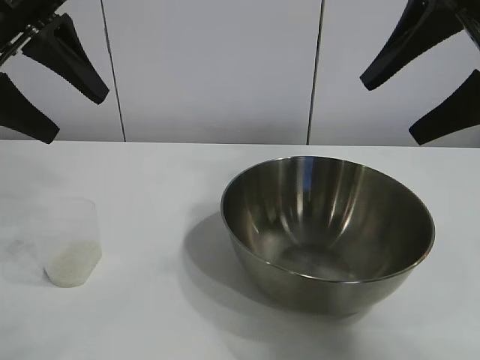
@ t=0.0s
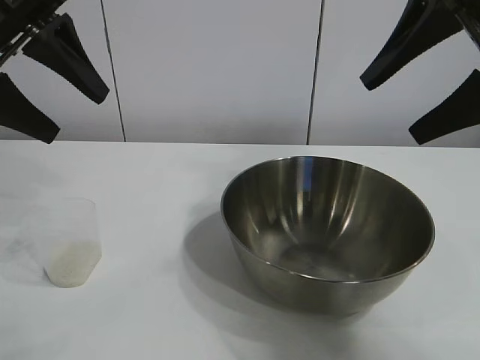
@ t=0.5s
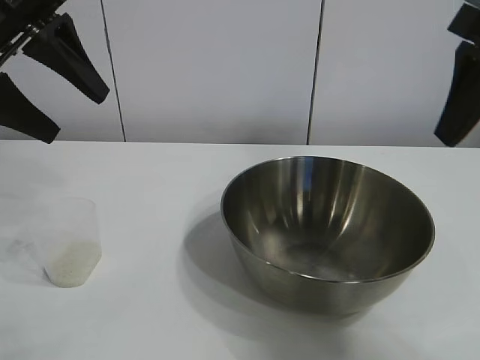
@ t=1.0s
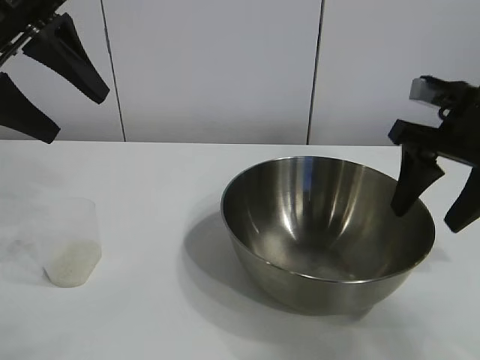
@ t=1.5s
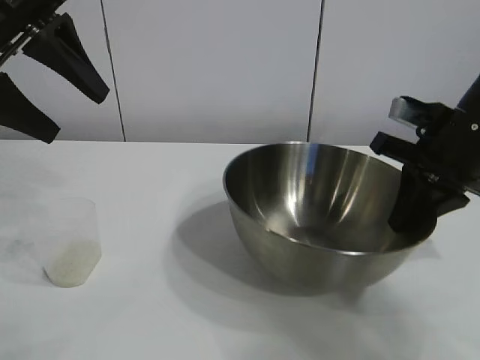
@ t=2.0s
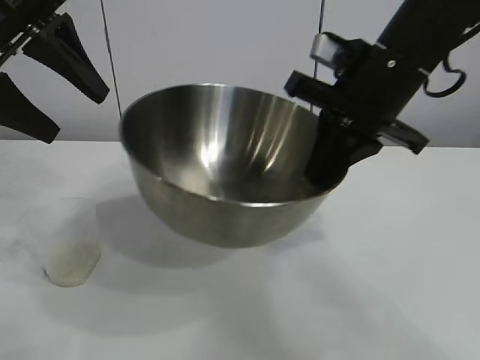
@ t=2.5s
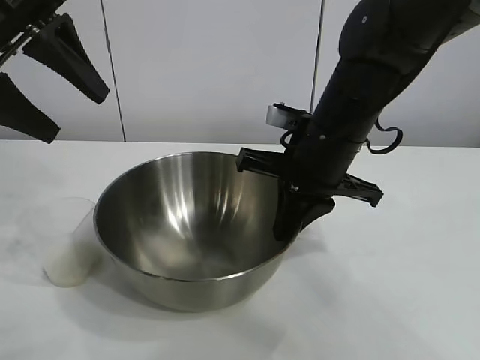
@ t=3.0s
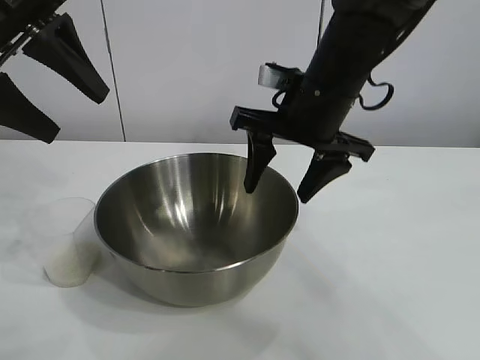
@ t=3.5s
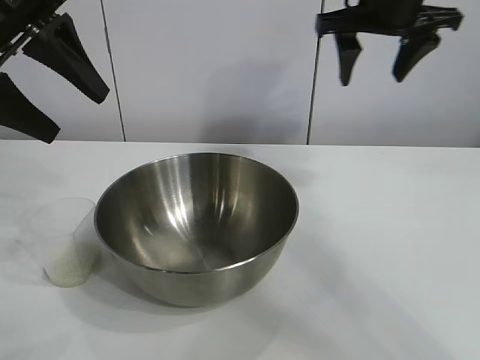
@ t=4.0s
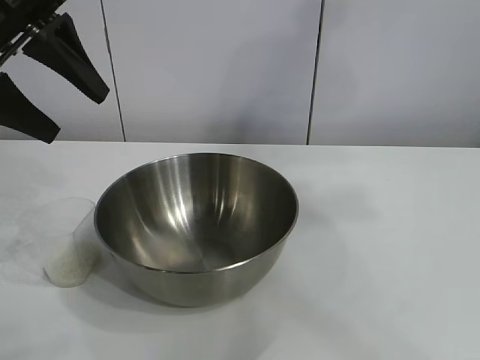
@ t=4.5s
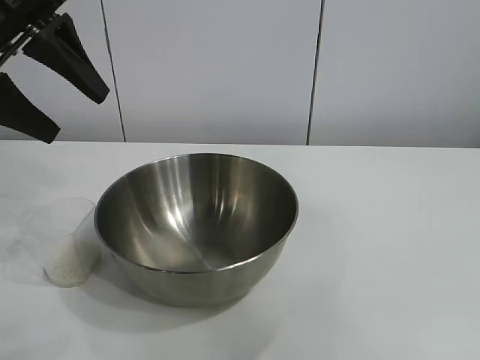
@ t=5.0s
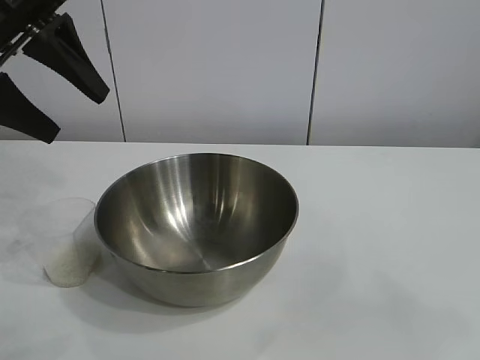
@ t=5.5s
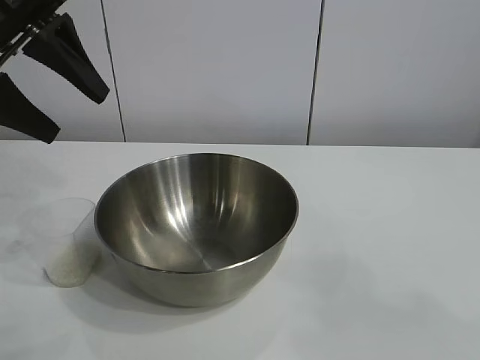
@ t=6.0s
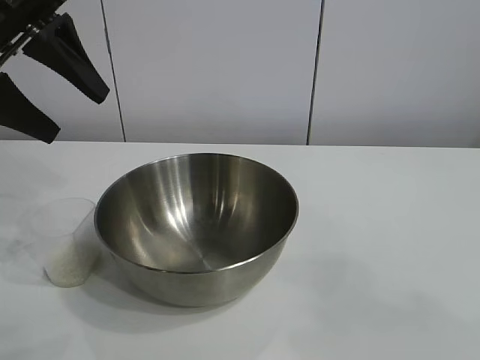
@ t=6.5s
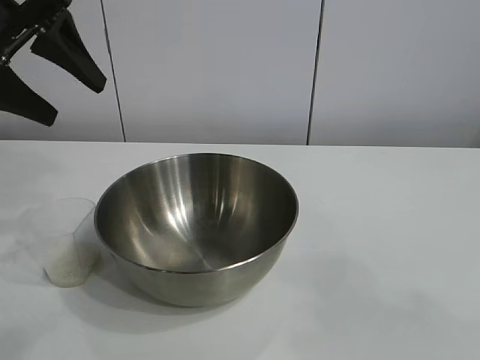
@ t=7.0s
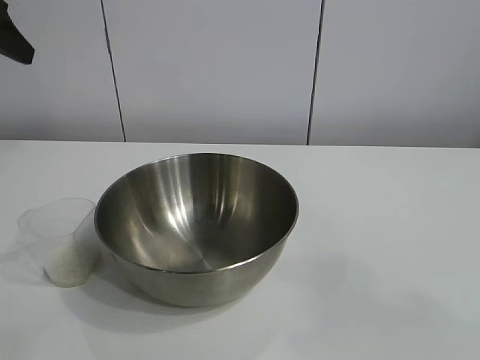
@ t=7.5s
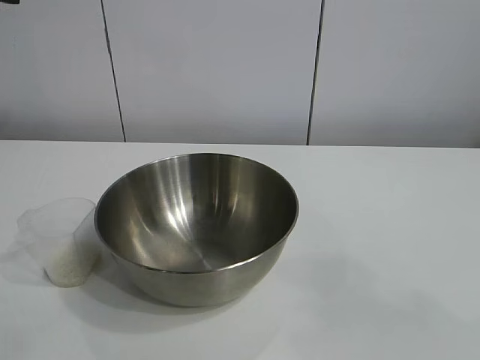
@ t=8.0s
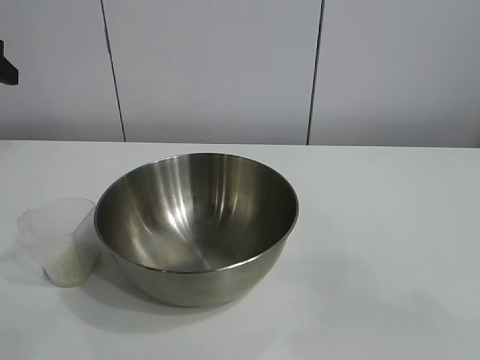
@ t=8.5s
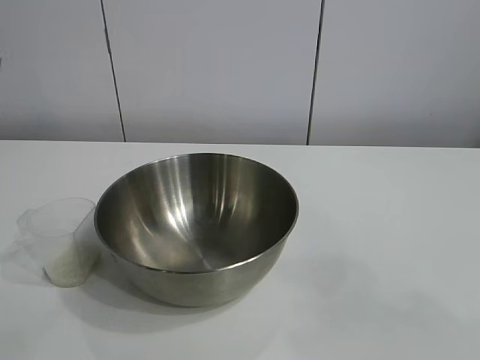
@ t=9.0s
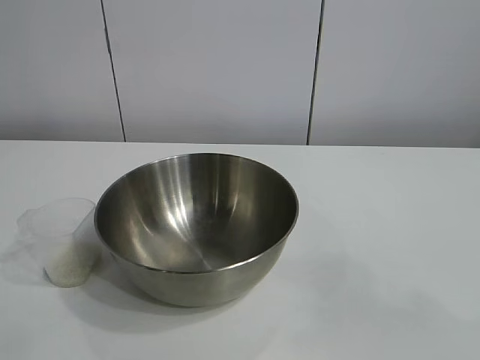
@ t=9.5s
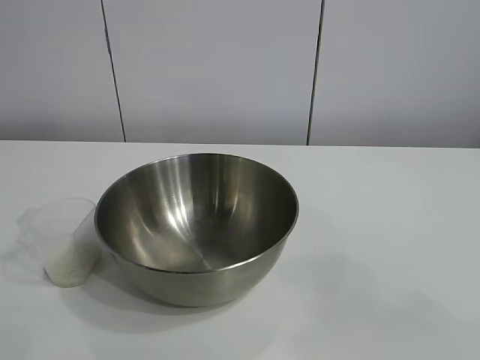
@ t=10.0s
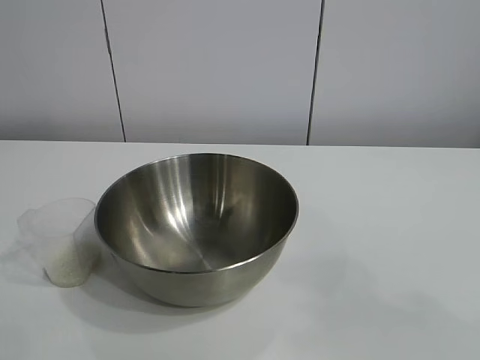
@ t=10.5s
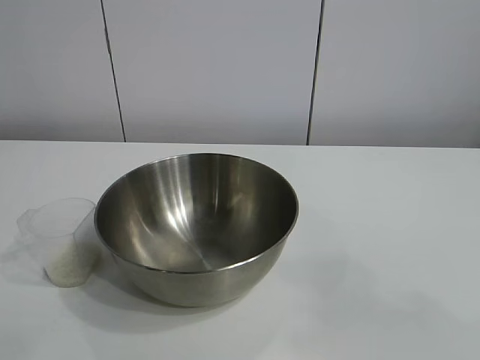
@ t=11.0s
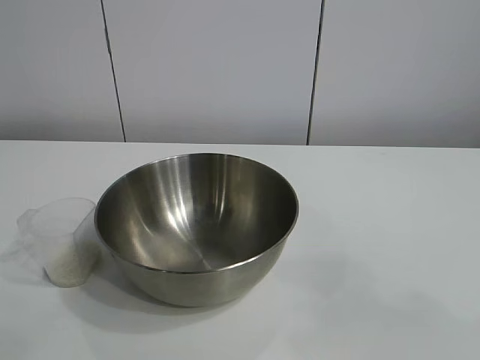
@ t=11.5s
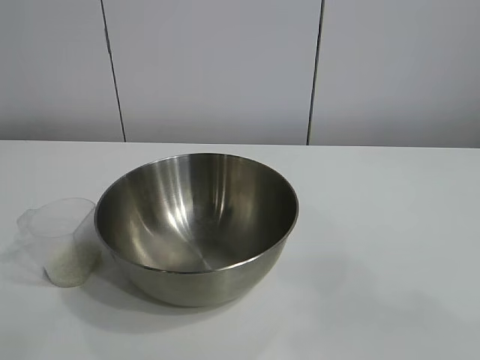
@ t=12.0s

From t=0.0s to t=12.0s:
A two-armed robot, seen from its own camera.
Task of the whole recording: the right gripper grasp the rice container and place it in the center of the table, the left gripper grasp the rice scoop and pour the rice into the rice container.
Step, from t=1.0s to t=3.0s: Move the bowl in the center of view with right gripper.

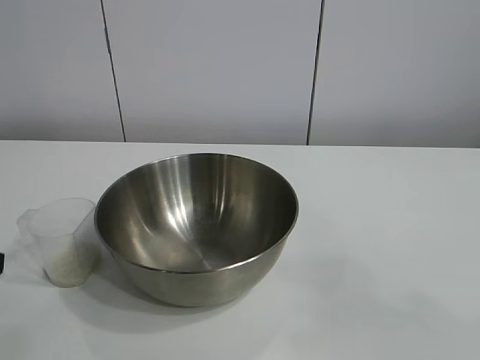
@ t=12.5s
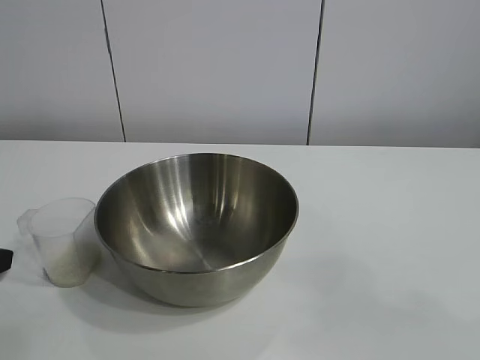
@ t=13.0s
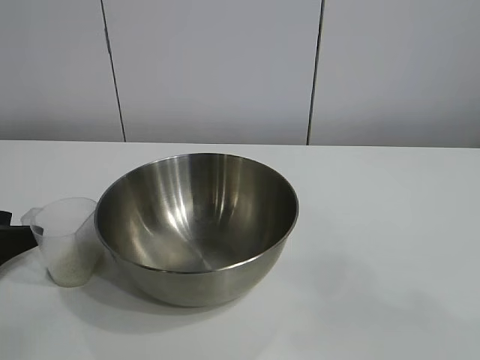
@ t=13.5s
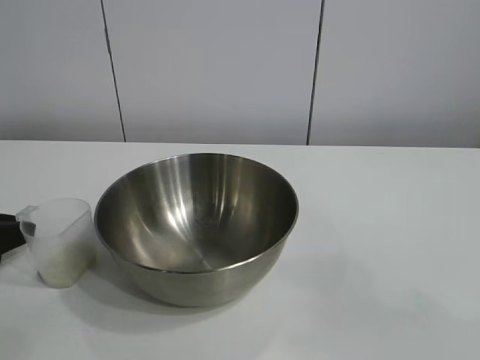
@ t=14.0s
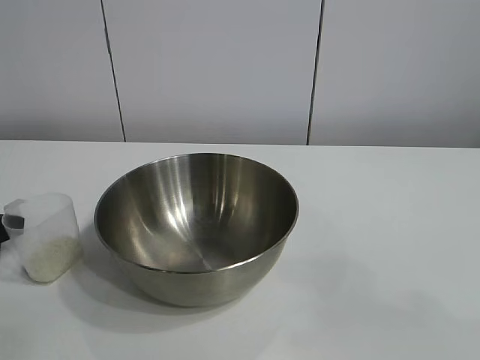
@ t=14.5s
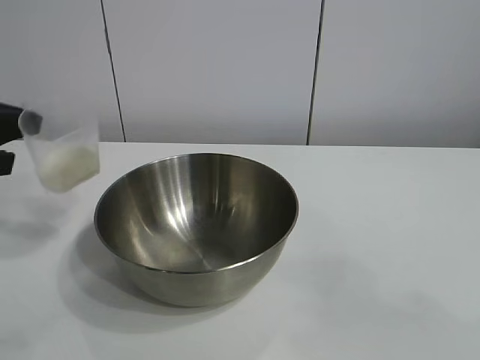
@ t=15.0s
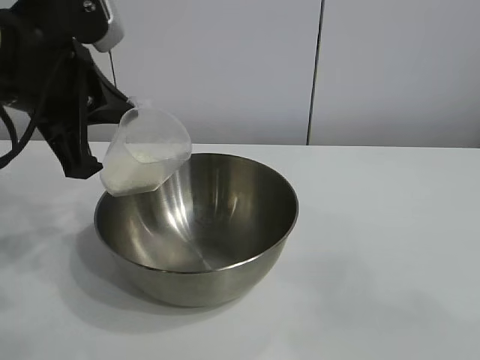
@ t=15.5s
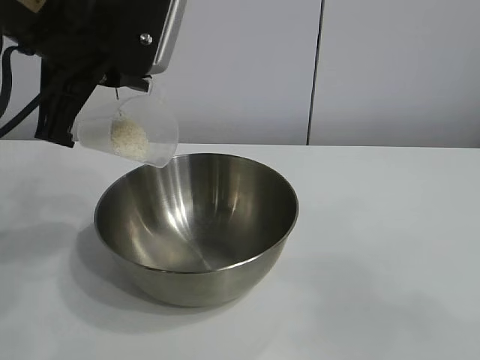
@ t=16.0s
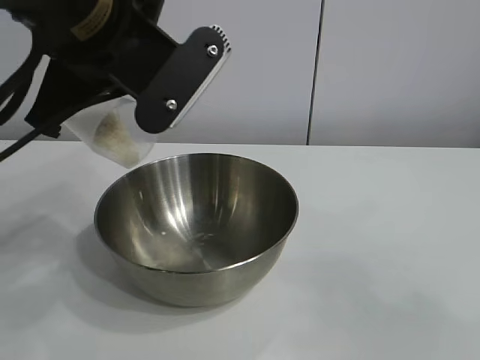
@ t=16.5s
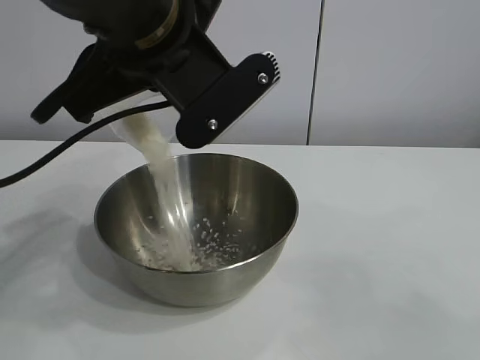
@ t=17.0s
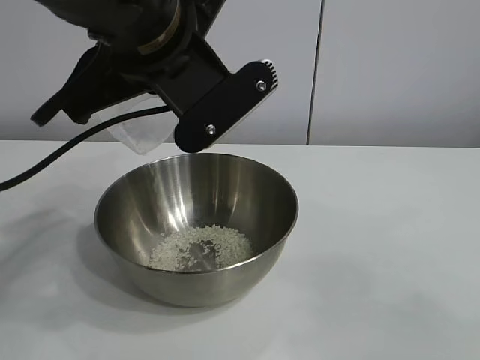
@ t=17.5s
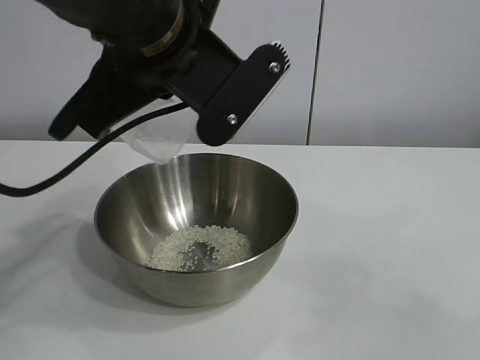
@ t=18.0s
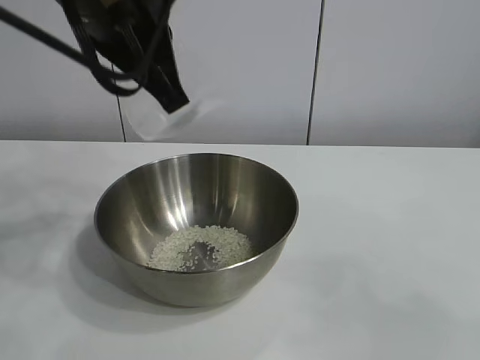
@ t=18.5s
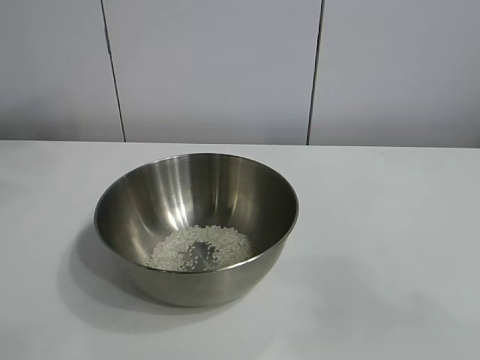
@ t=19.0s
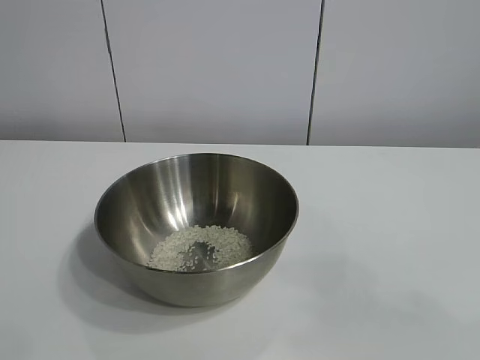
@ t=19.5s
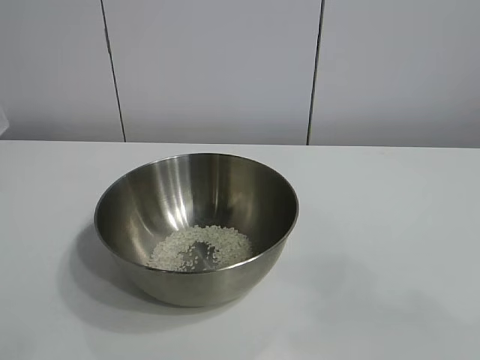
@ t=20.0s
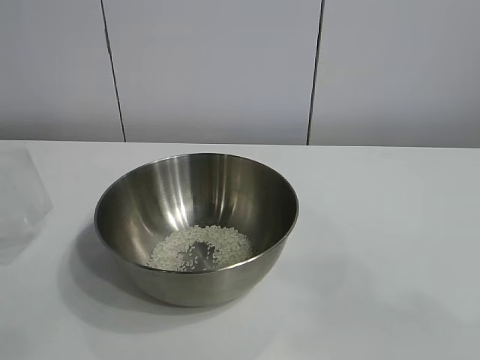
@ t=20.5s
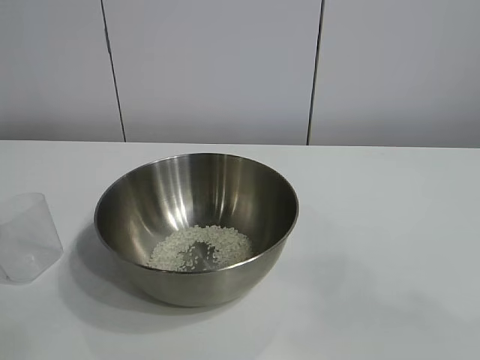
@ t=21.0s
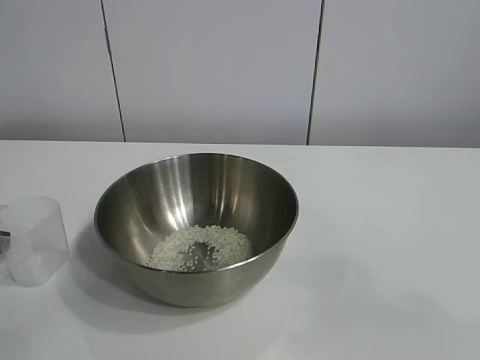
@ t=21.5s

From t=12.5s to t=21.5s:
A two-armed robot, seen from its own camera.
Task of the whole recording: the right gripper grasp the rice container and place it in the center of the table, the left gripper grasp the rice scoop and pour the rice into the rice container.
Step, from t=14.5s to t=17.5s: Pour the rice from the cup into the bowl with the left gripper.
Step, from t=18.0s to t=21.5s: Place the cup on the table with the left gripper.
